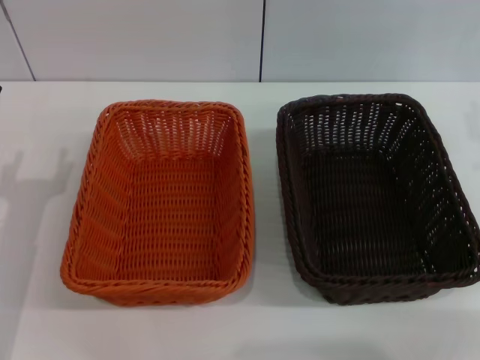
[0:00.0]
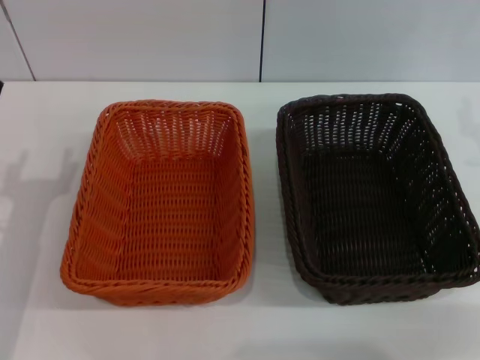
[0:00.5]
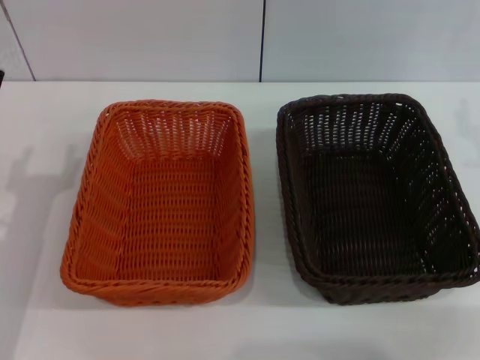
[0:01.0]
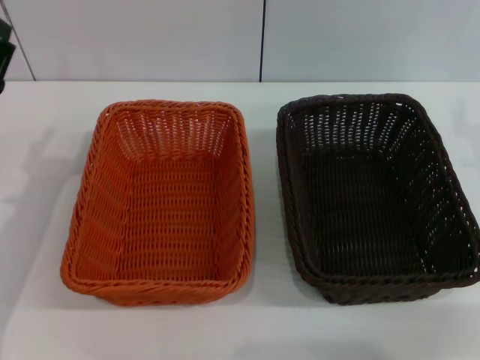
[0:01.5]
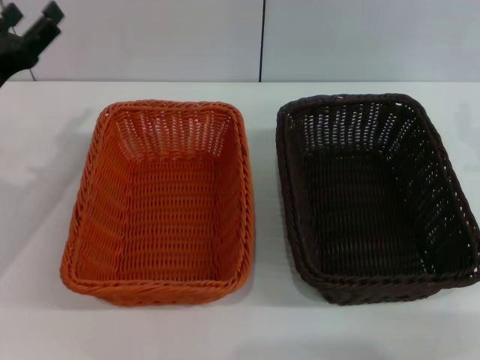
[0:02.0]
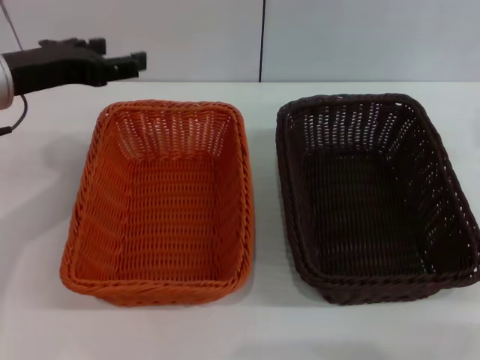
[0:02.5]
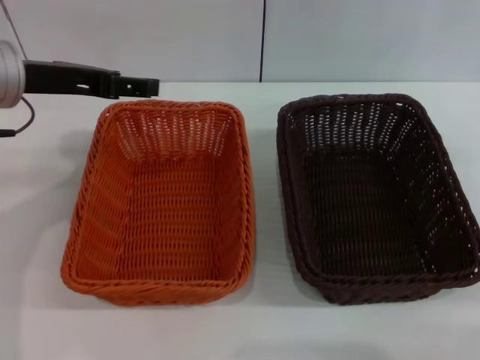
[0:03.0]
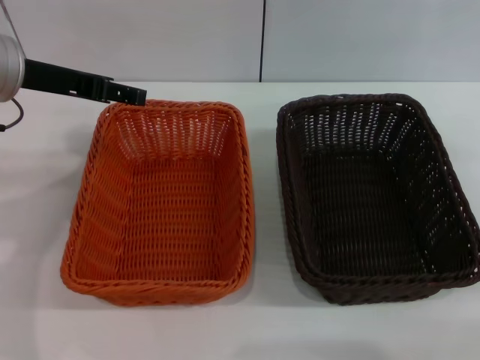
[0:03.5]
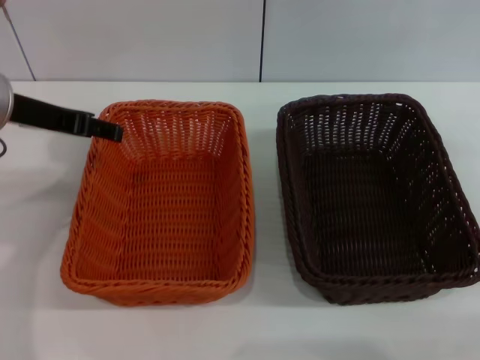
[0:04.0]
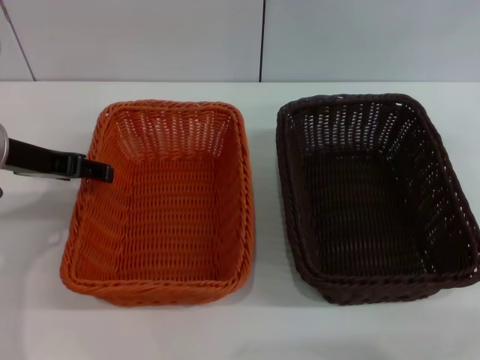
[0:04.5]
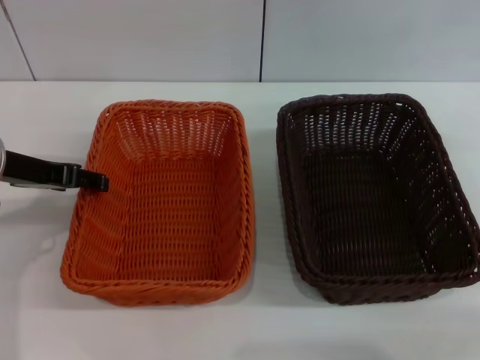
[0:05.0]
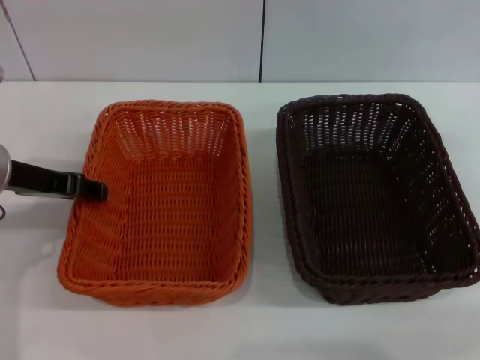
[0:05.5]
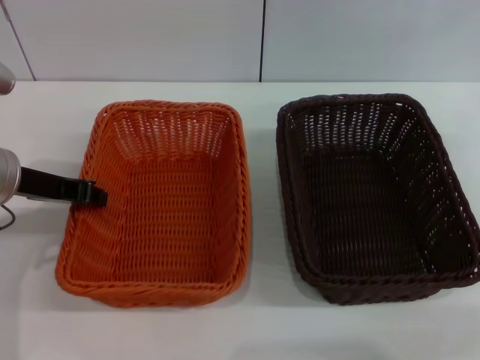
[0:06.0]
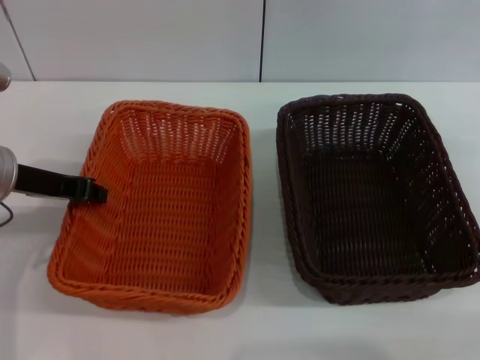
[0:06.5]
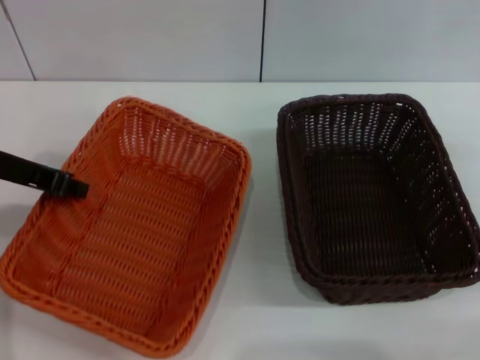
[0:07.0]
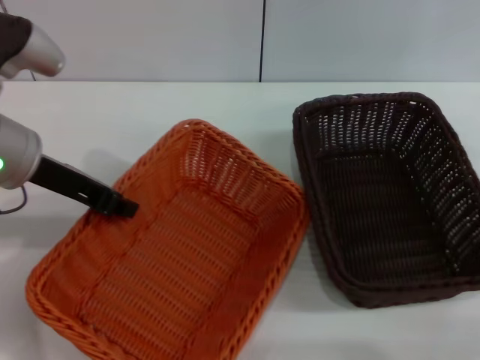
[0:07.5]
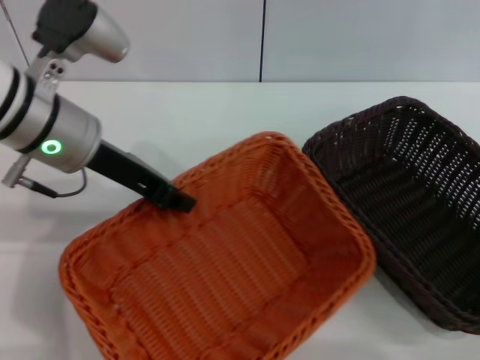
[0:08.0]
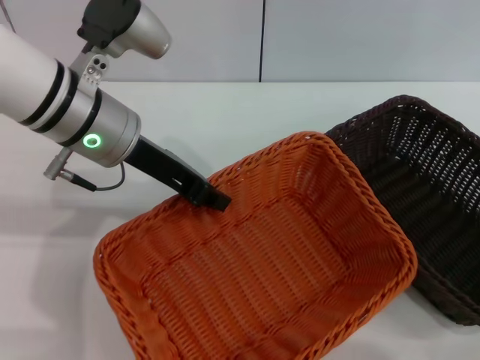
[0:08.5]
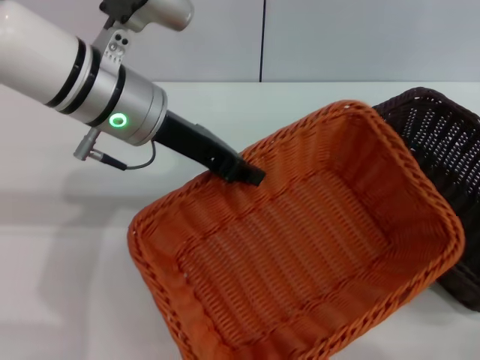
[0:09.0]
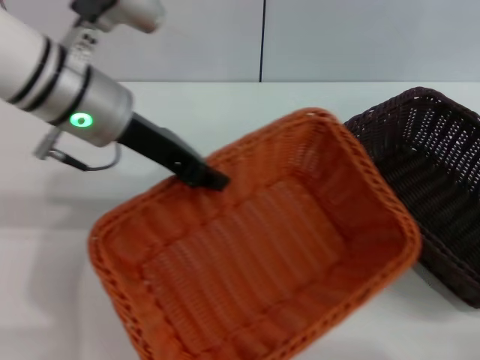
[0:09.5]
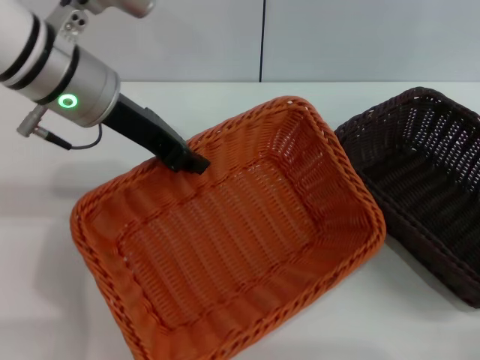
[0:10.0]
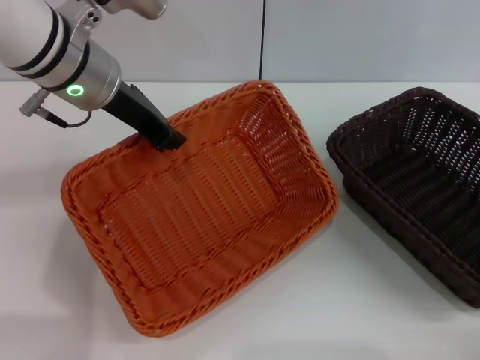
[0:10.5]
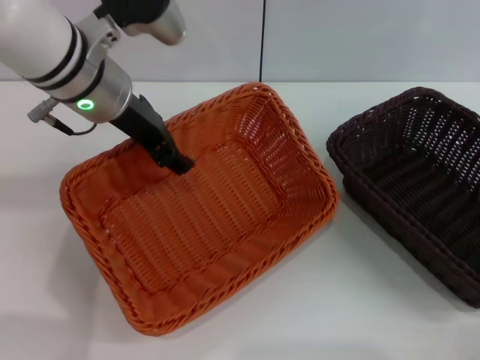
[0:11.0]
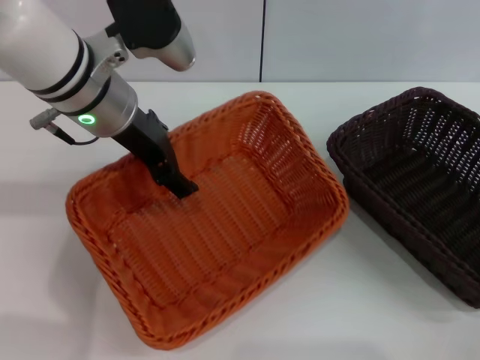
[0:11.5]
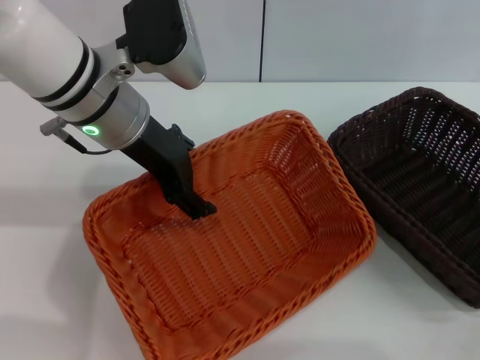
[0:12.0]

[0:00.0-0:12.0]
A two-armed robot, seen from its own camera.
Step, 0.0 to 6.5 s: Pick up the light basket with the left gripper.
0.0 to 2.0 s: The left gripper heads upward and forward, covering some 10 cm.
2.0 to 4.0 s: The left gripper travels upward and to the right by some 10 cm.
4.0 to 6.0 s: The left gripper moves downward, roughly 5 cm, and closes up.
6.0 to 8.0 s: The left gripper is displaced to the right and upward by about 10 cm, and closes.
10.0 to 12.0 s: The left gripper opens up.

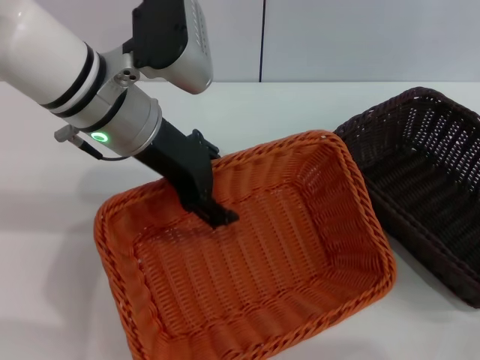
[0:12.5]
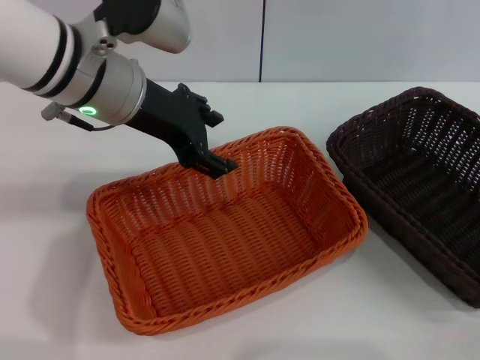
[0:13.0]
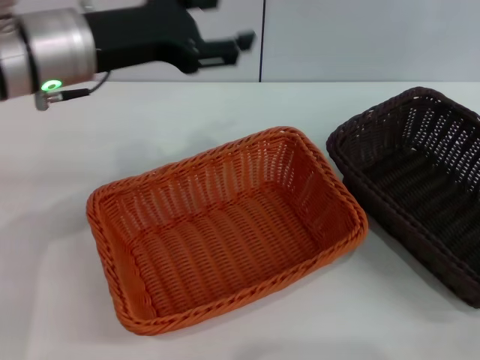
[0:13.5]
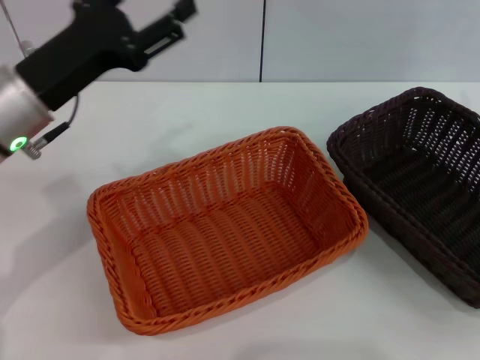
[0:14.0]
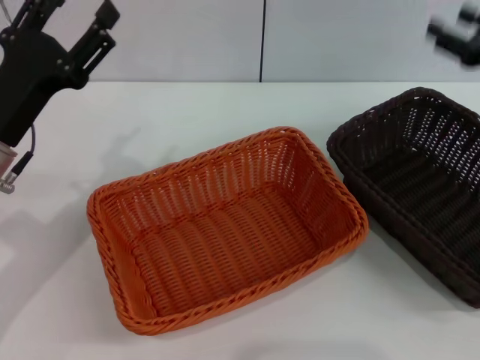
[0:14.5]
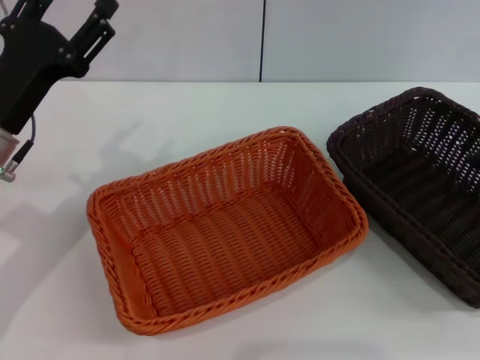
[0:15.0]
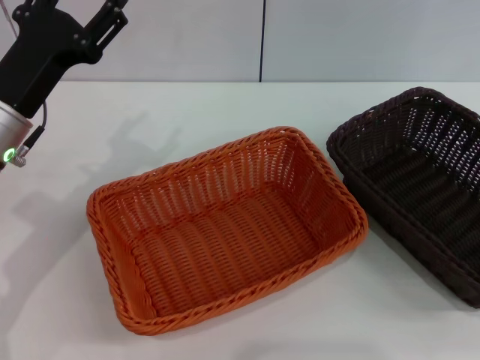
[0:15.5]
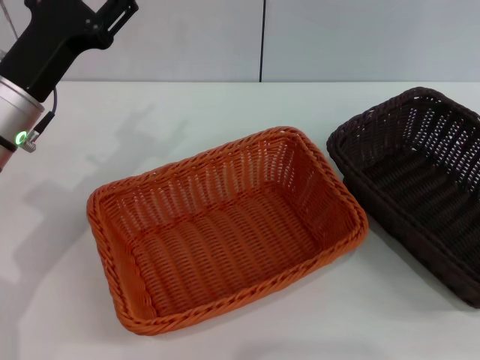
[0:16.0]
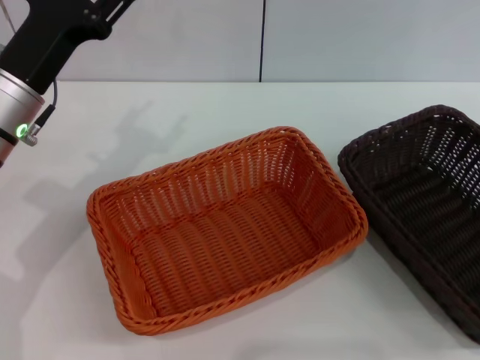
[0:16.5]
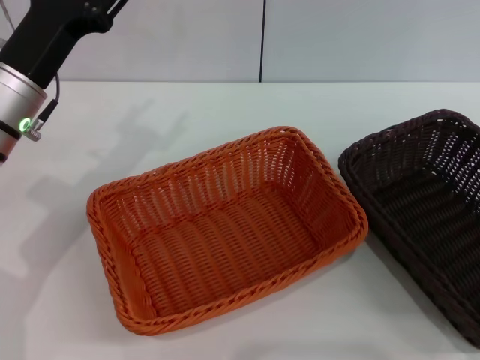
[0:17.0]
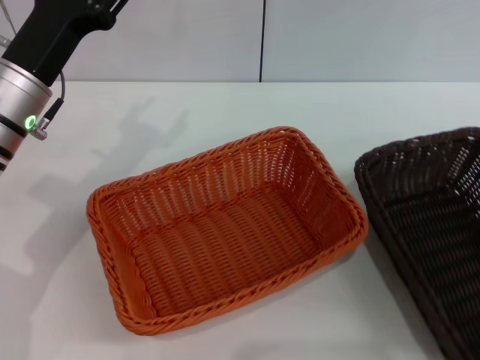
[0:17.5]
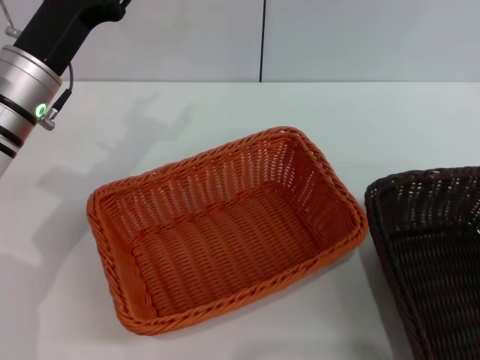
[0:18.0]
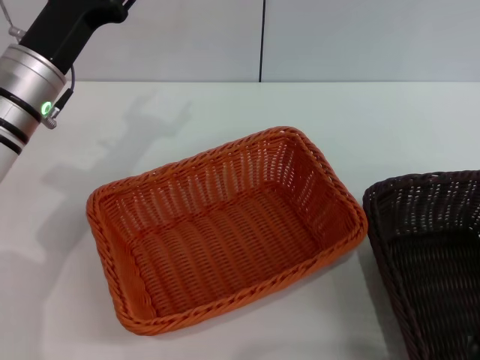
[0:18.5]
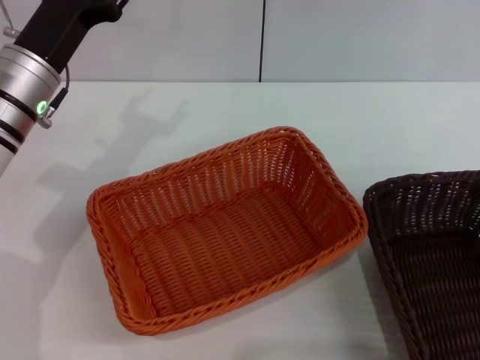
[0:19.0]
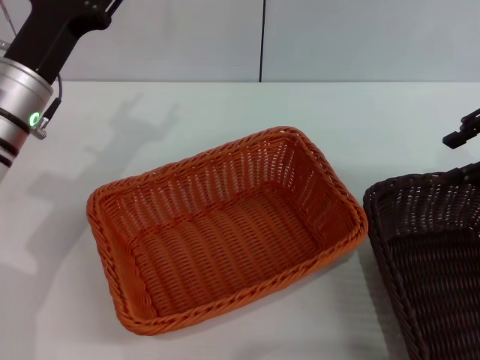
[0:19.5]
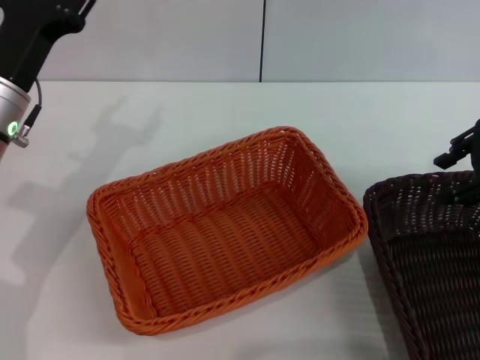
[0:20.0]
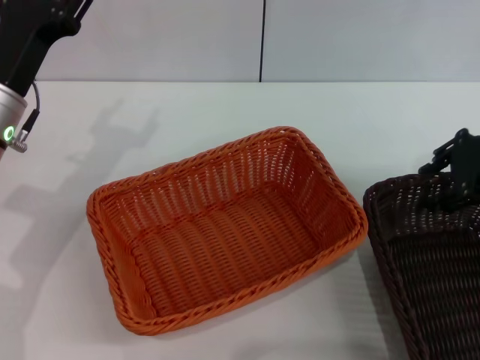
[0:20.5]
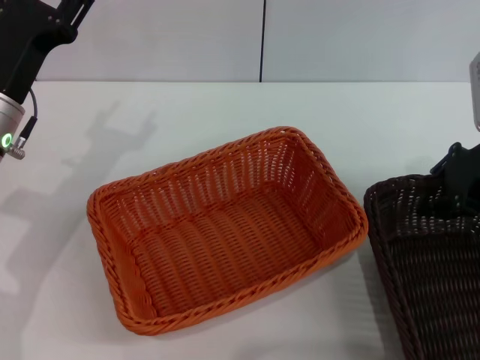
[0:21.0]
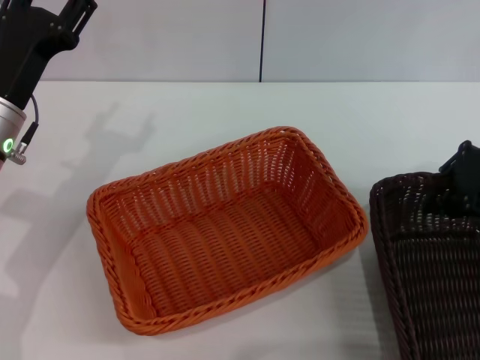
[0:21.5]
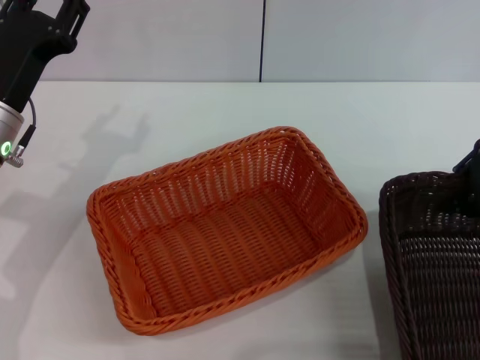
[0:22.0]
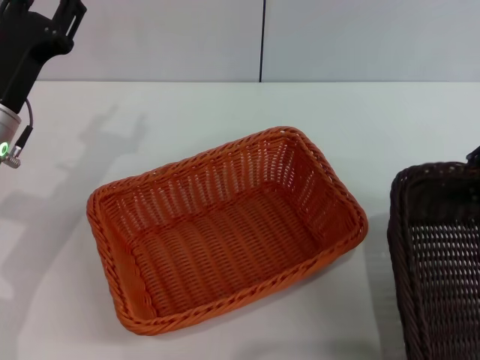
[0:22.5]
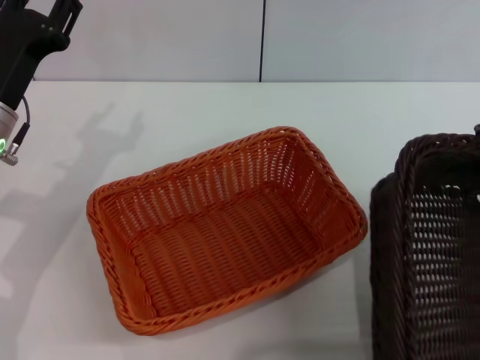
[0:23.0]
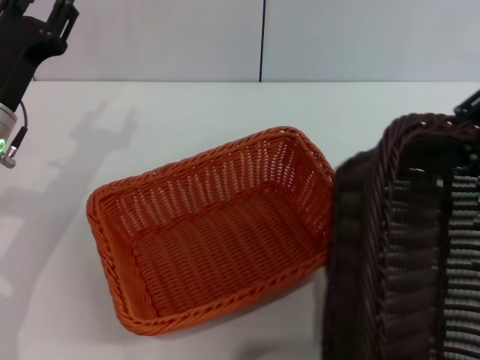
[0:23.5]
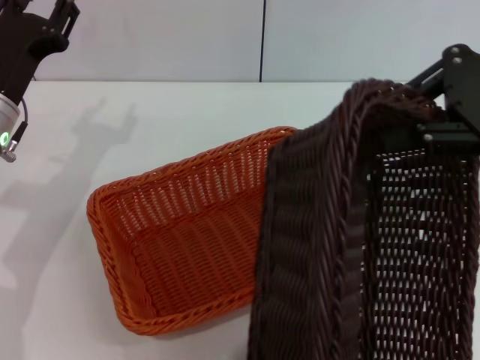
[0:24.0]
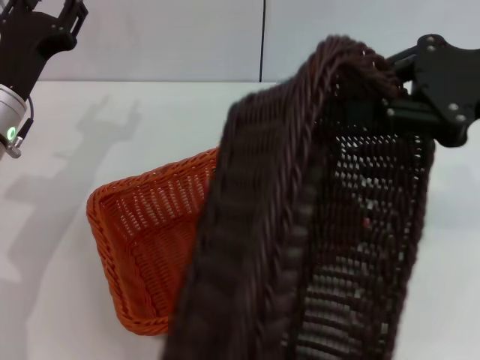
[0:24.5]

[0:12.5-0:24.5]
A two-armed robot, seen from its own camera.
Step, 13.0 to 22.0 s: Pick up the dark basket with the right gripper.
12.5 to 14.5 s: The right gripper moves upward, about 10 cm. Meanwhile the left gripper goes approximately 15 cm to the left, downward and backward.
14.5 to 16.5 s: The left gripper shifts by roughly 5 cm; the right gripper heads backward, covering about 10 cm.
16.5 to 18.5 s: The right gripper shifts roughly 5 cm to the left.
18.5 to 20.5 s: The right gripper is displaced forward by roughly 10 cm.
20.5 to 22.5 s: The right gripper ends up roughly 5 cm from where it was, and closes up.
22.5 to 24.5 s: The right gripper travels to the left by some 5 cm.

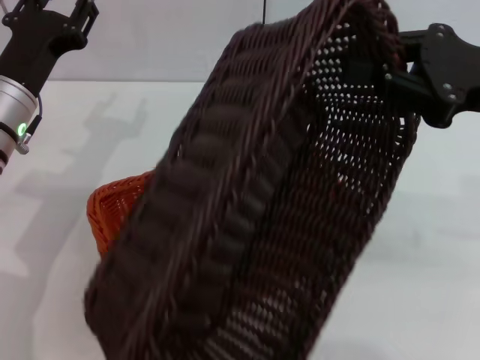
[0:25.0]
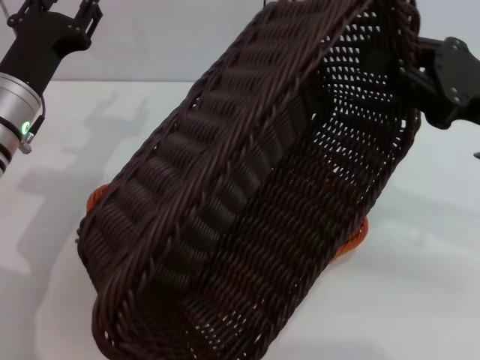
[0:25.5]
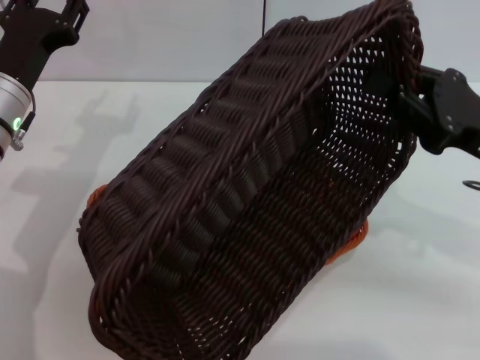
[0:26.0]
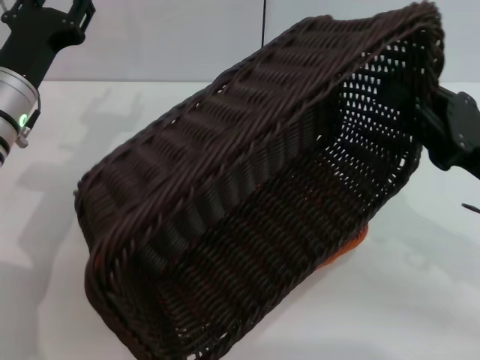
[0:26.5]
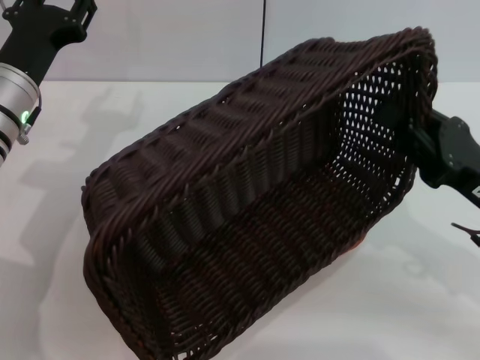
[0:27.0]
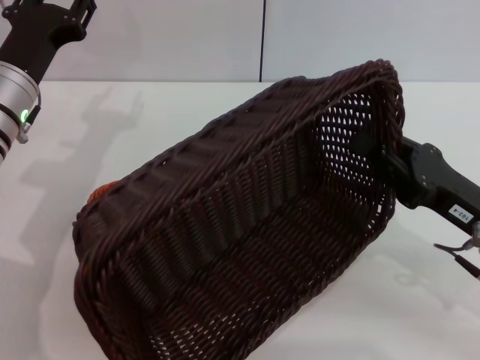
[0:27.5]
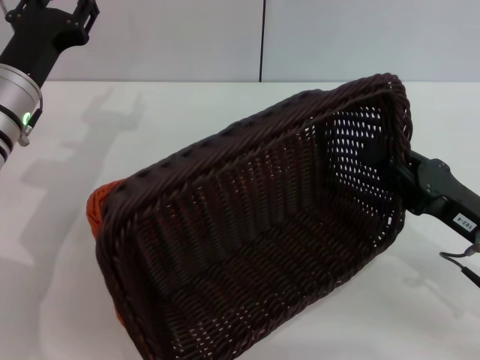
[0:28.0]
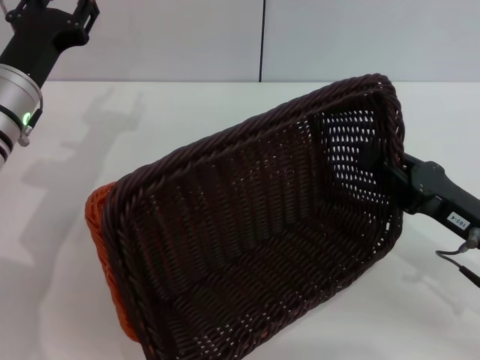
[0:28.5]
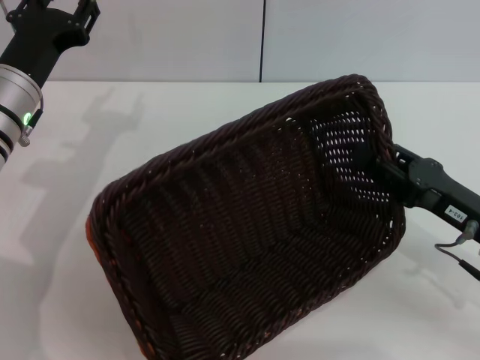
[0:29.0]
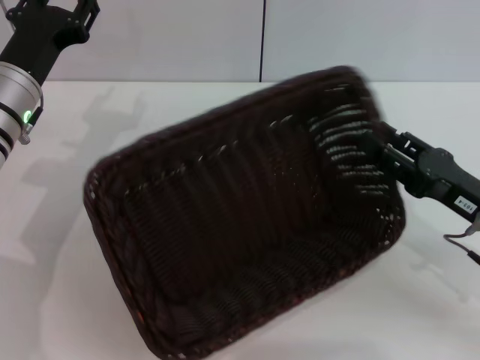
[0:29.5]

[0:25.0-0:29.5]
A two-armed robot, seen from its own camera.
25.0 to 27.0 s: The right gripper moves downward and backward, approximately 15 cm.
27.0 to 29.5 s: The right gripper opens.
